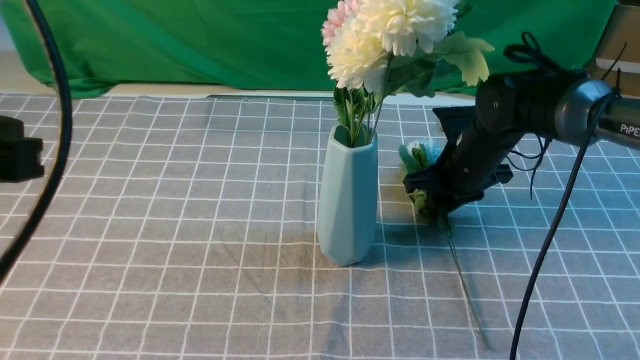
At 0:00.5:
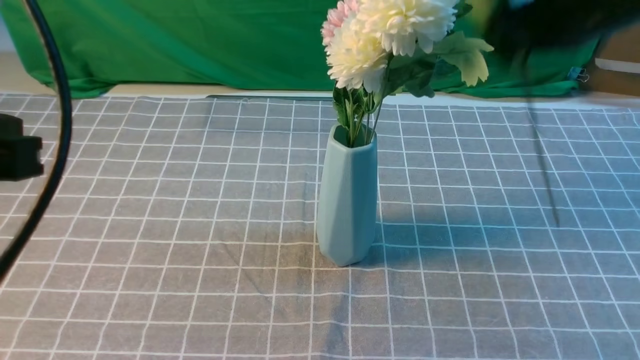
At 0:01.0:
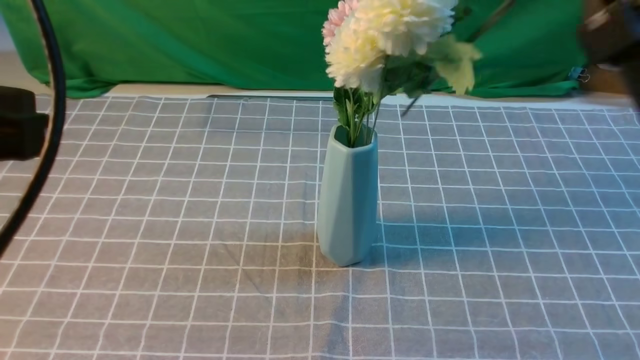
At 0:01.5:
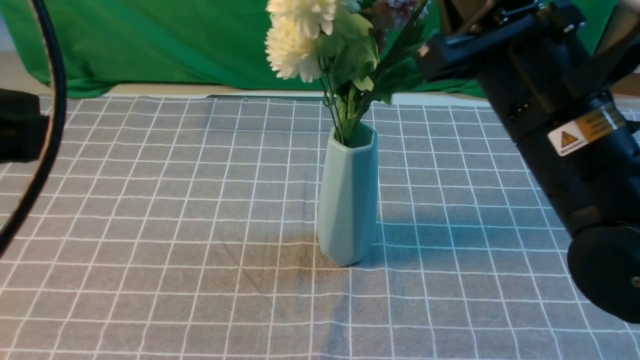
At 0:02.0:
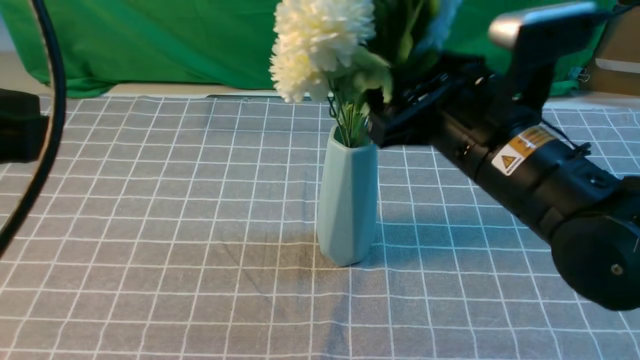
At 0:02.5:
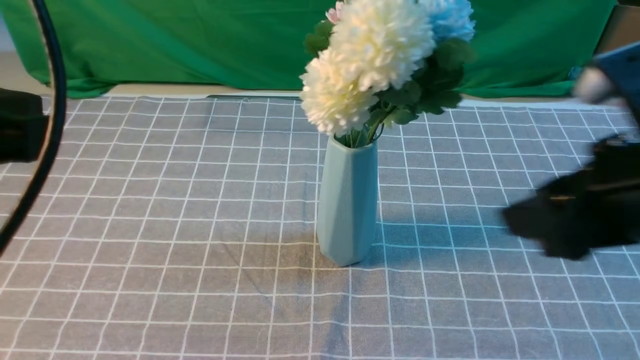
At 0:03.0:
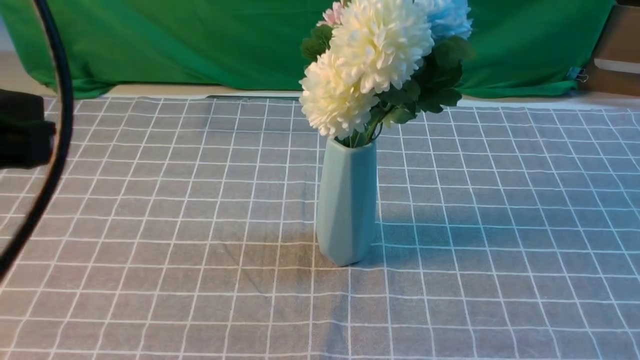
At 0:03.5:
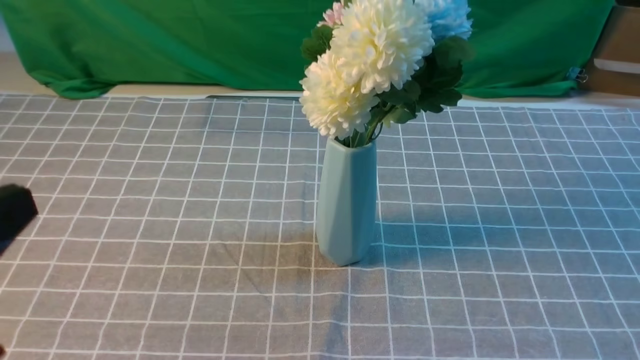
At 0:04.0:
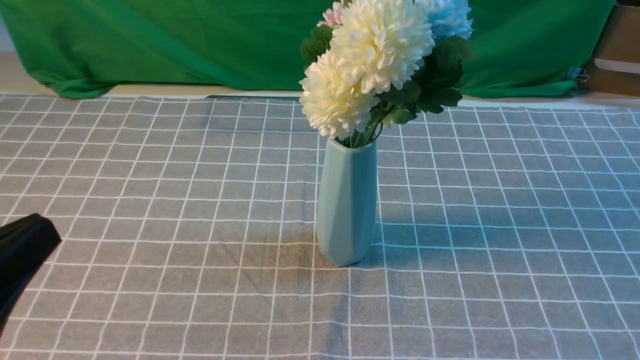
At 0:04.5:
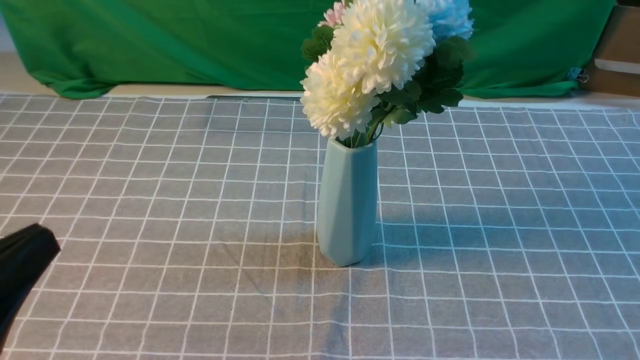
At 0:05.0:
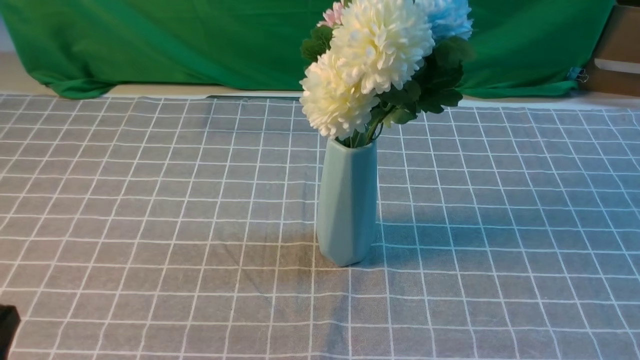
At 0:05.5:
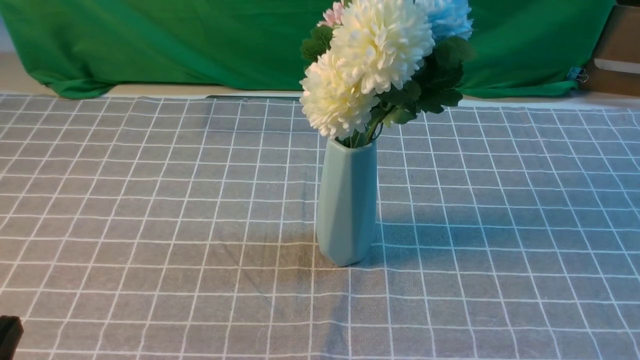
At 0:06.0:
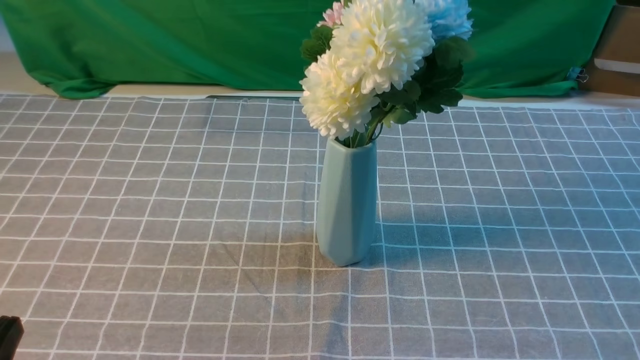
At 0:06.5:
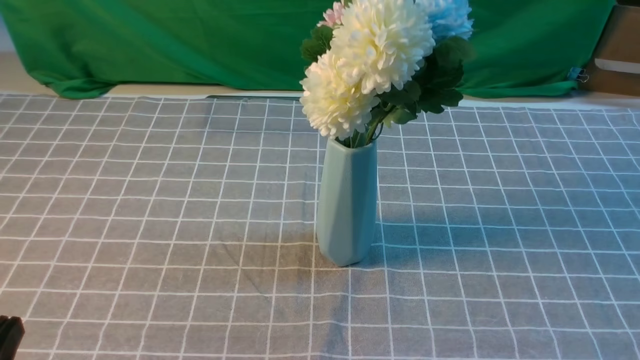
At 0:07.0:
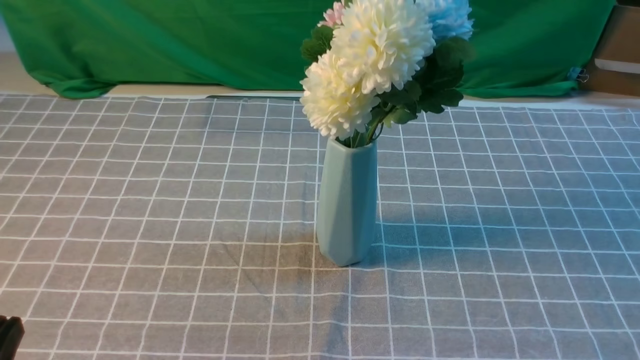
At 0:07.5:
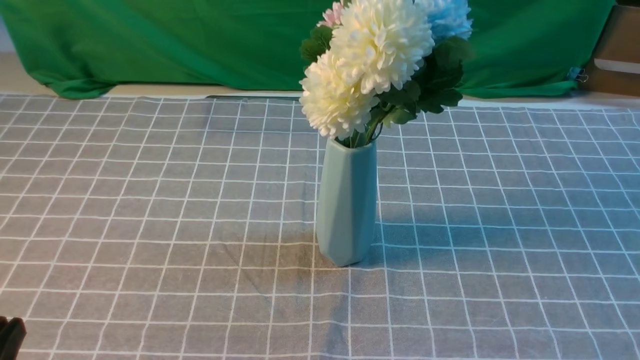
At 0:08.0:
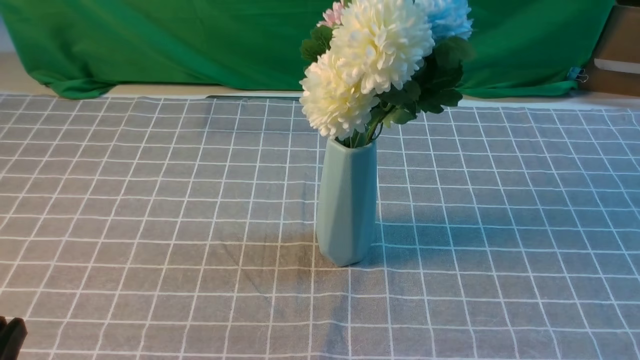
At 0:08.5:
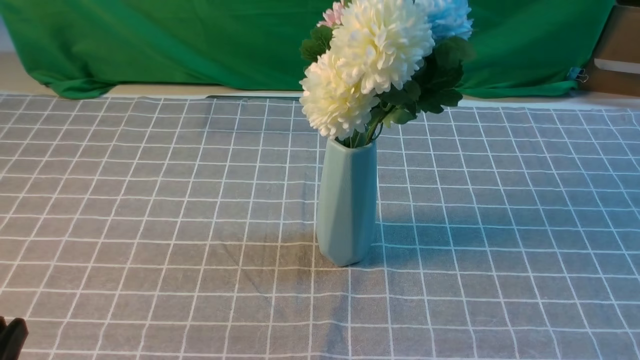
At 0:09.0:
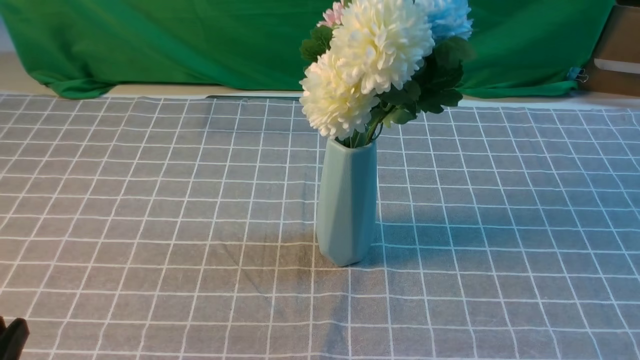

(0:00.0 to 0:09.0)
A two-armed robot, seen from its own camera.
Task of the whole recording: insert the flowers into the vase on the table with the grey tablecloth.
Step, 0:00.5 - 0:02.0: use the right arm to insert the flowers into the vase.
0:00.0 - 0:02.0: The right gripper shifts about 20 cm backward and upward, and opens up.
0:02.0 - 0:04.5: The left gripper shifts roughly 15 cm downward and backward, while the right gripper shifts some 25 cm backward and to the right, and closes its fingers.
0:04.5 - 0:07.0: The left gripper travels downward by roughly 10 cm.
